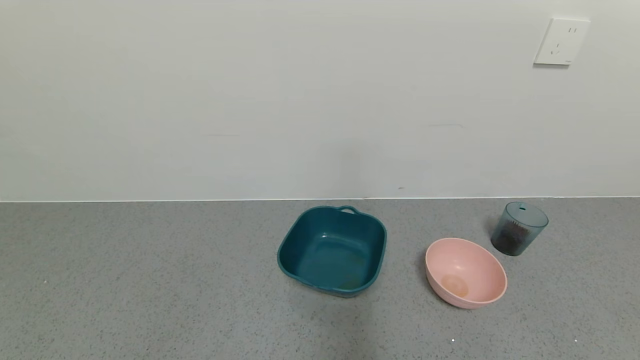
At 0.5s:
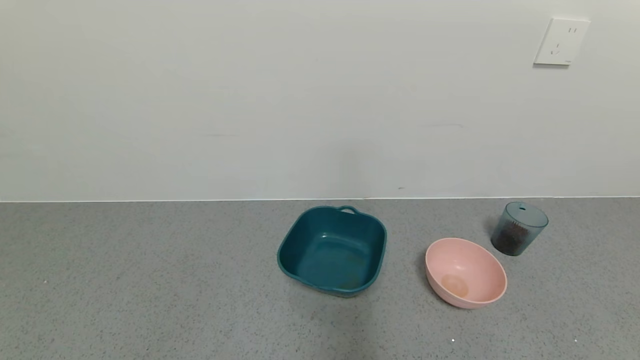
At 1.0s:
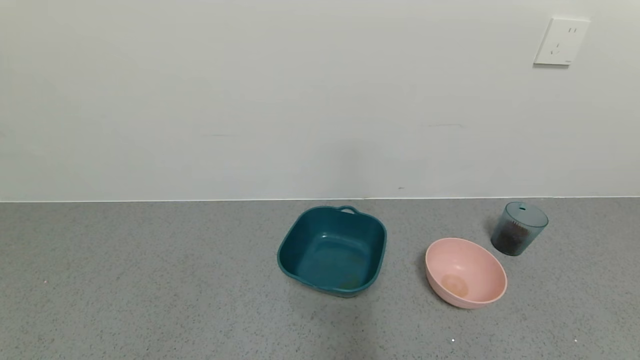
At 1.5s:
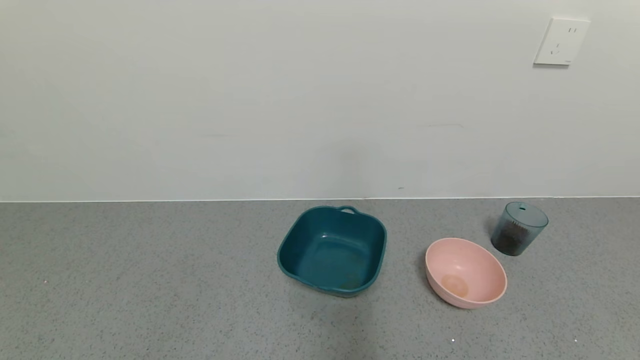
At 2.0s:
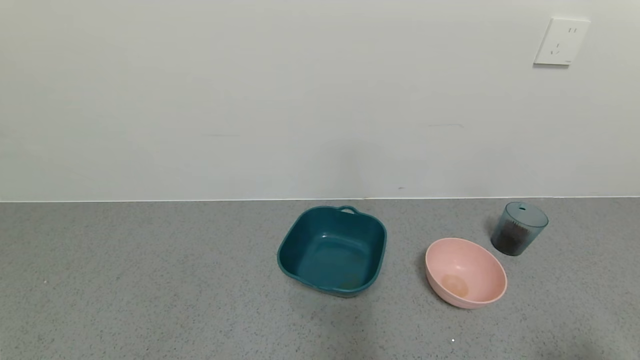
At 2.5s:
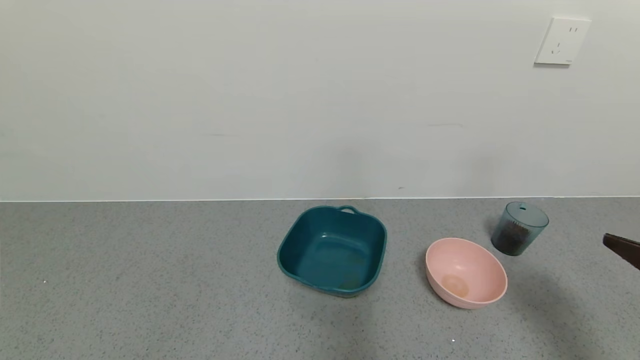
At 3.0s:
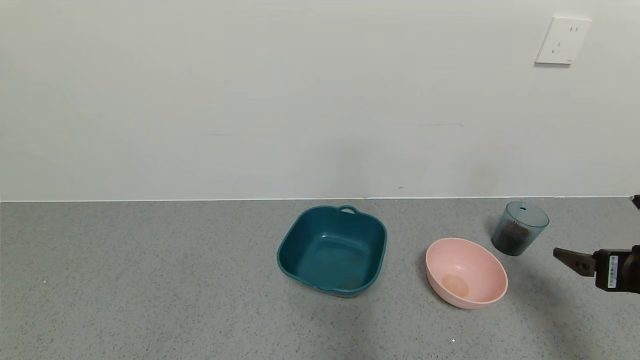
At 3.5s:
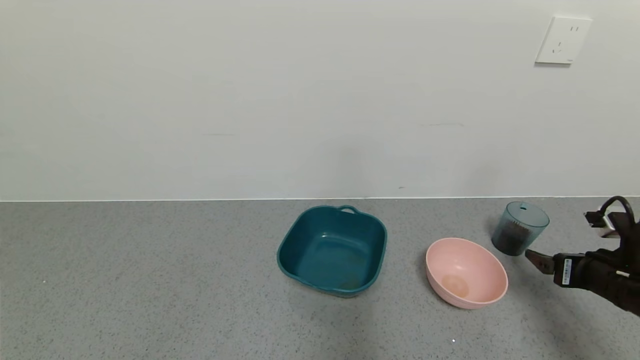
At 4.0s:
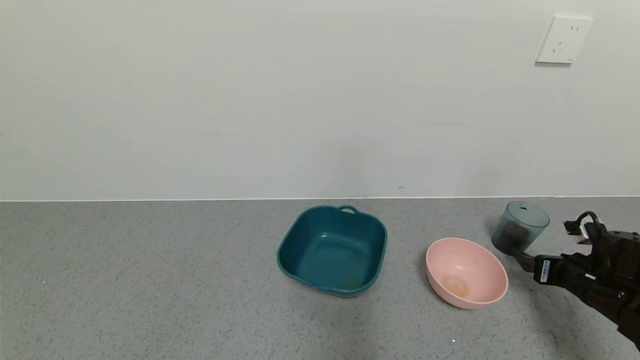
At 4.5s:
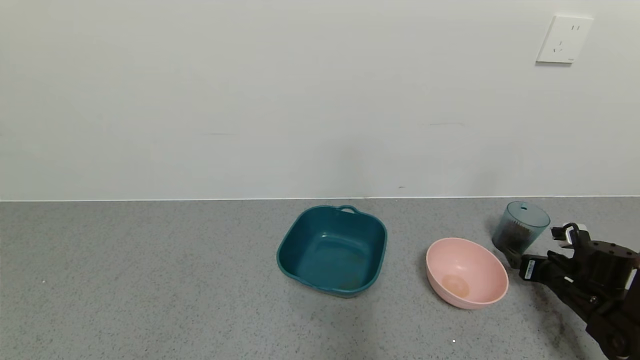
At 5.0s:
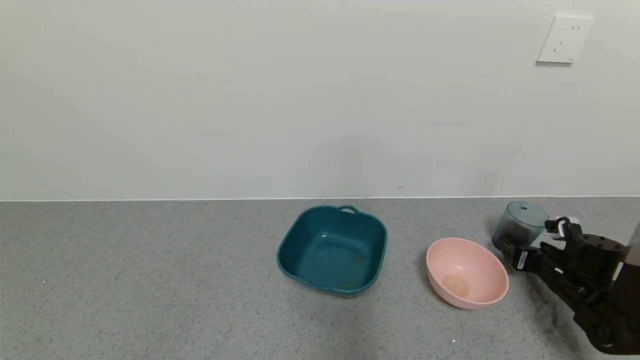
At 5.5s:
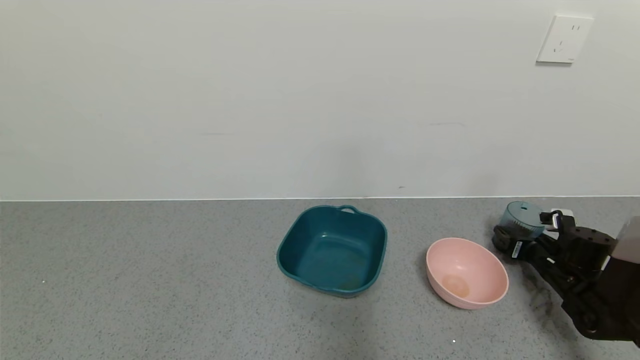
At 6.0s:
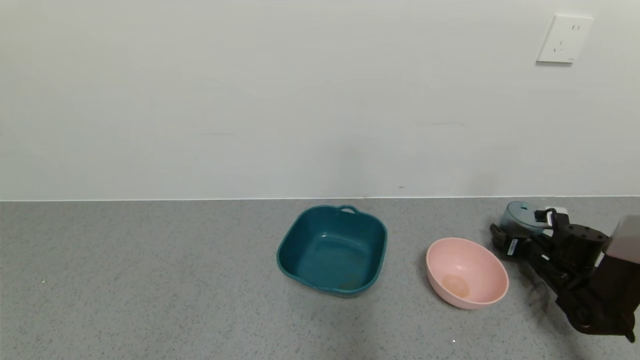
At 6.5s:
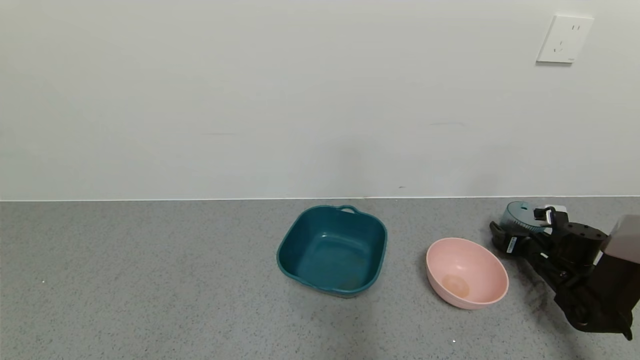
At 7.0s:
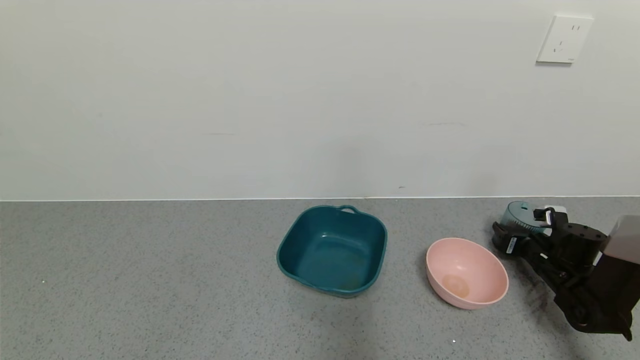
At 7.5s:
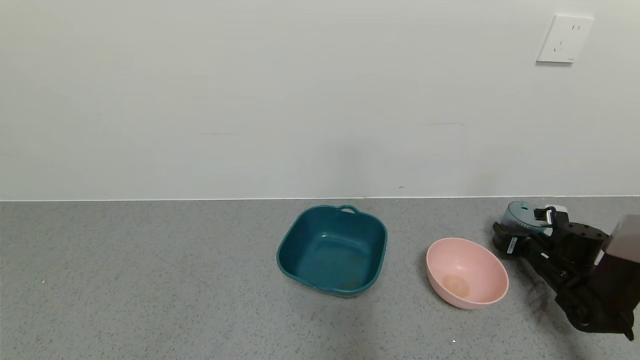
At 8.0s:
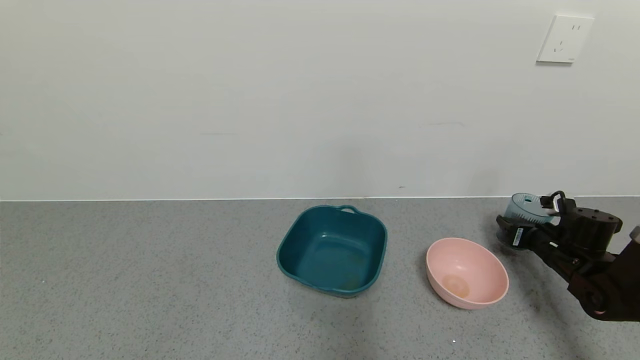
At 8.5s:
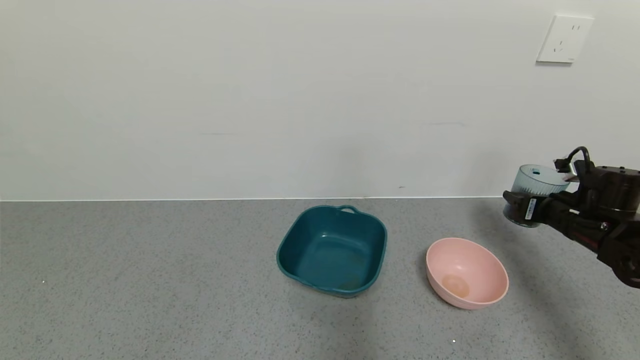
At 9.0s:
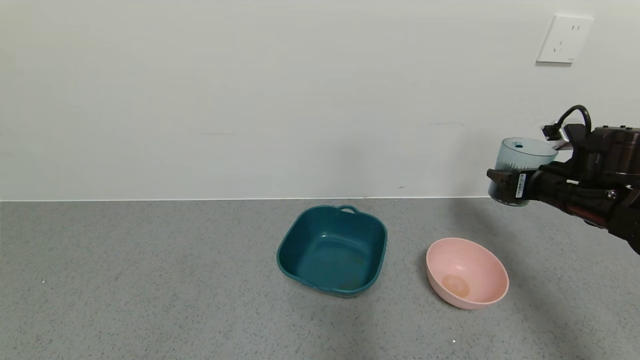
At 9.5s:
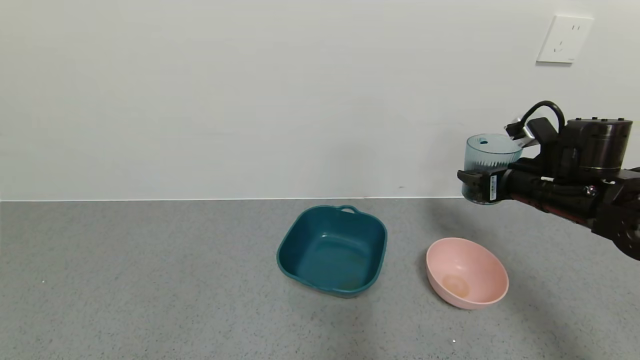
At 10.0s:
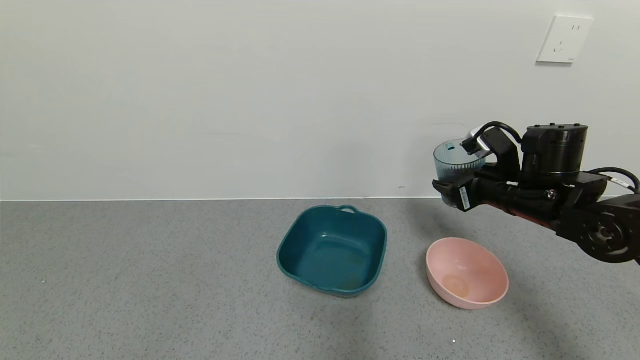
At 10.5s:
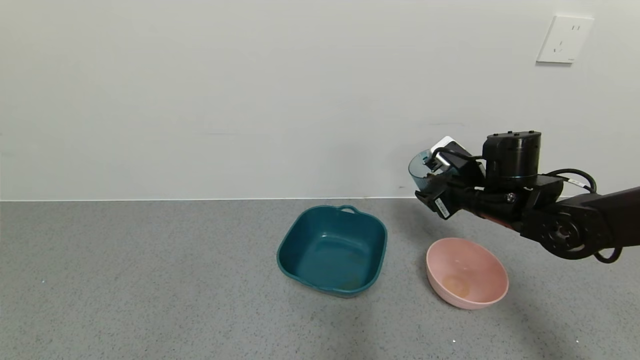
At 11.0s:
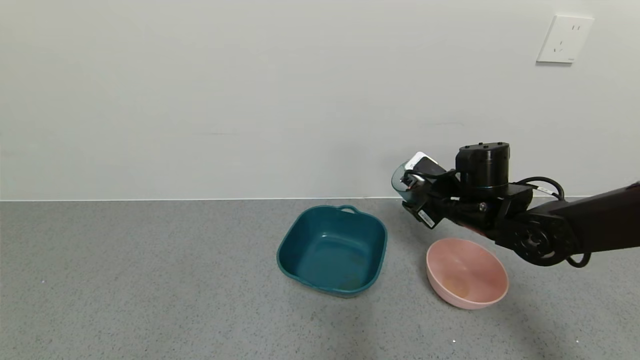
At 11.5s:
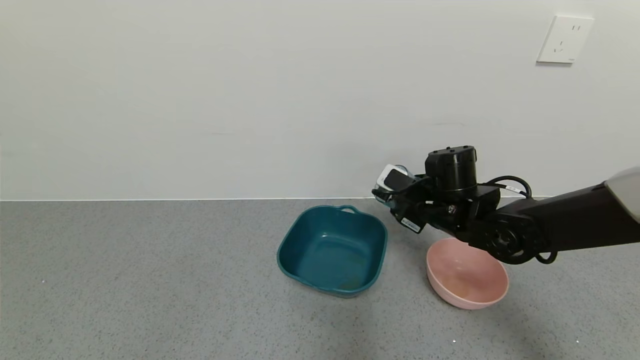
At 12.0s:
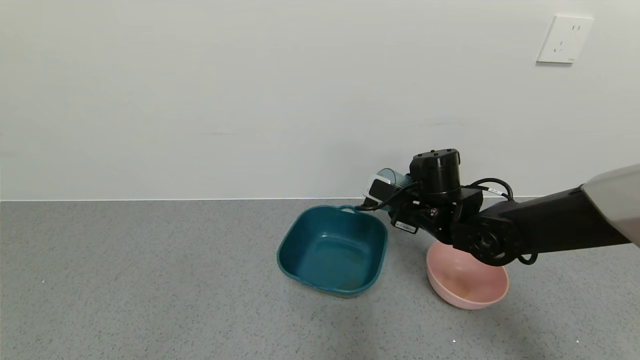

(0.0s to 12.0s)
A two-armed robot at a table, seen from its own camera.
Task of the whole recording: use a gripper to pick up the cup and pour the solid into a bowl or tray.
Step, 0.0s - 7.0s: Grasp the glass of coffee beans with the right gripper.
2.0s - 4.0s: The right gripper moves forward and downward, approximately 30 cm.
4.0s - 6.0s: The right gripper is displaced forward by some 10 cm.
6.0s - 8.0s: The right gripper closes its fingers.
8.0s - 10.0s: The right gripper moves to the left and upward, about 20 cm.
10.0s - 12.0s: The right gripper heads to the left, covering roughly 10 cm.

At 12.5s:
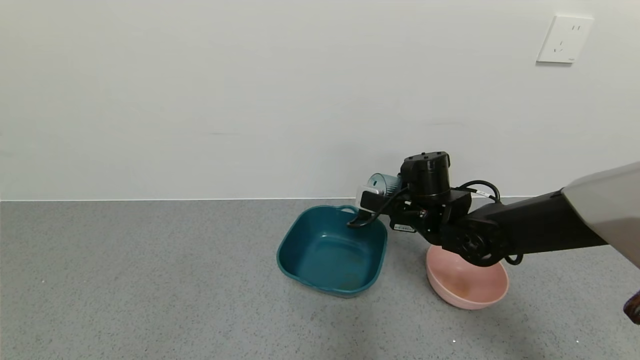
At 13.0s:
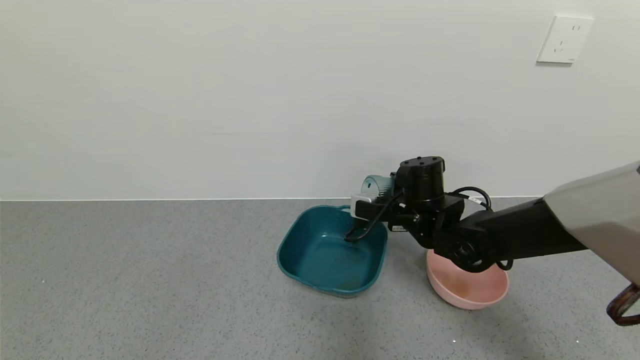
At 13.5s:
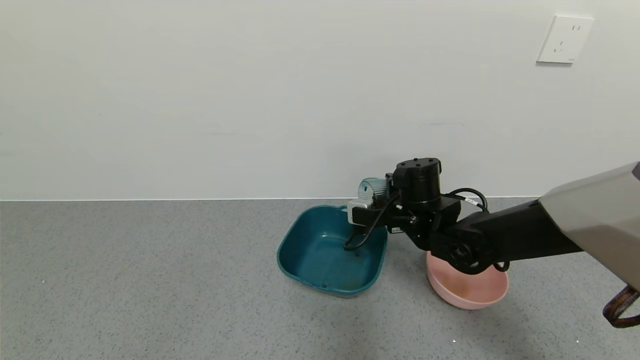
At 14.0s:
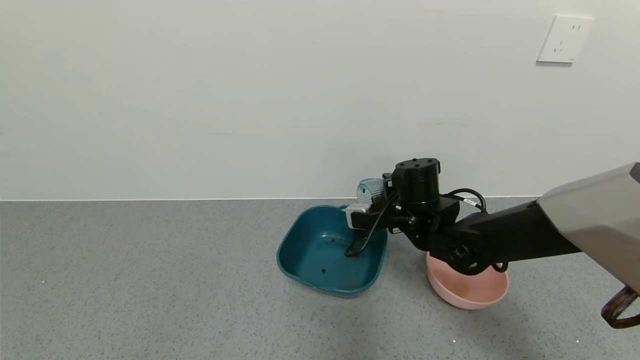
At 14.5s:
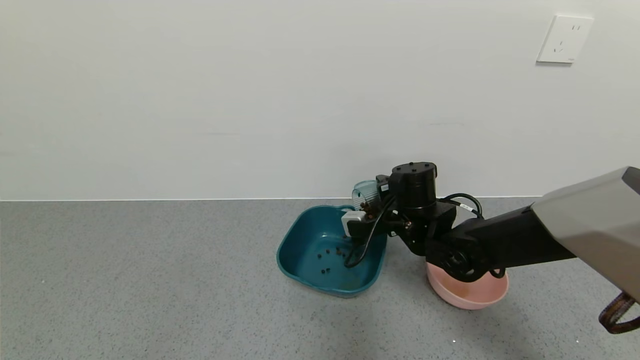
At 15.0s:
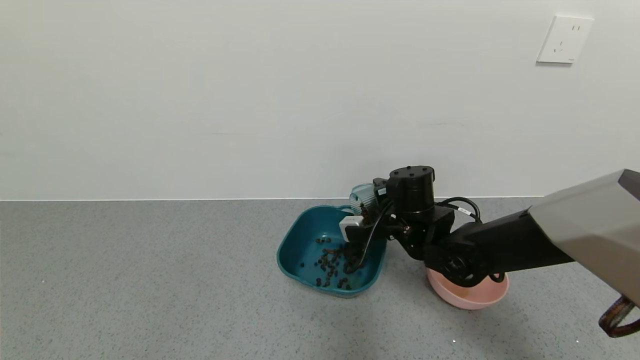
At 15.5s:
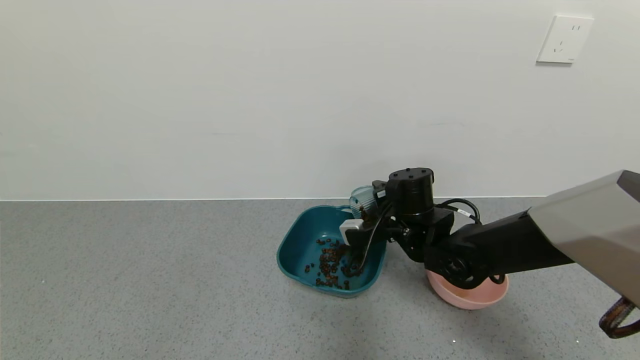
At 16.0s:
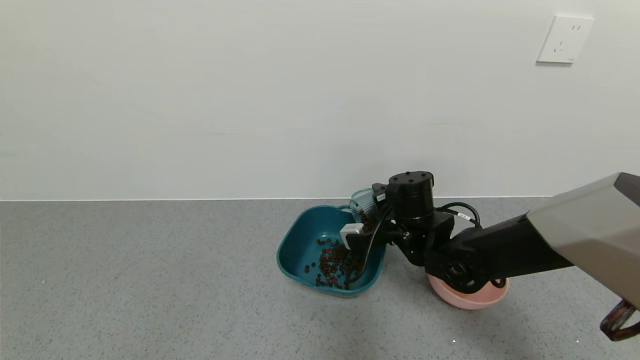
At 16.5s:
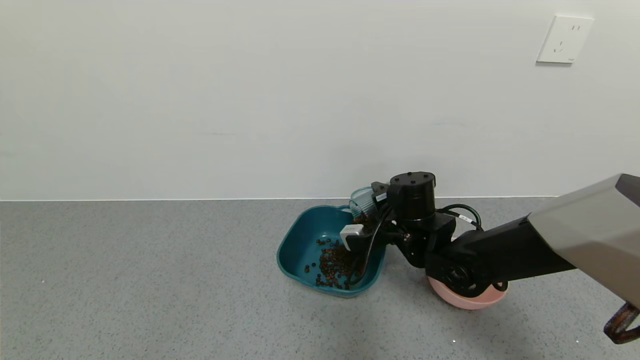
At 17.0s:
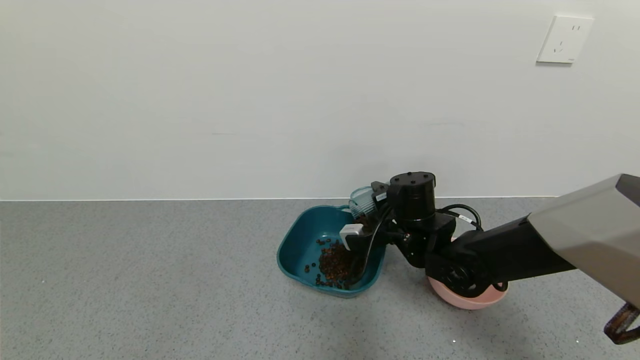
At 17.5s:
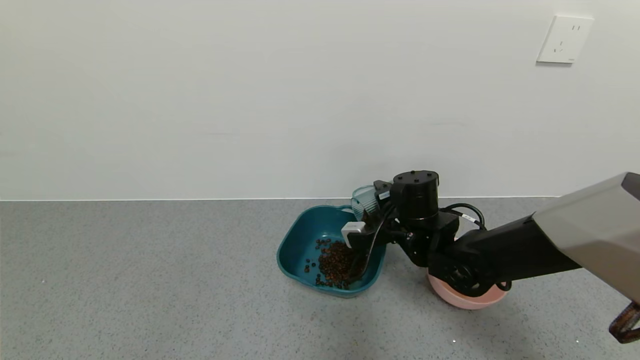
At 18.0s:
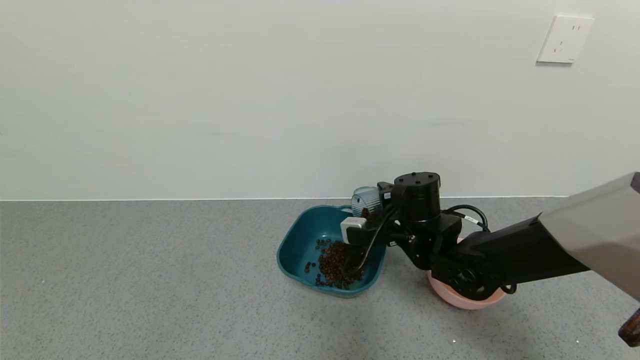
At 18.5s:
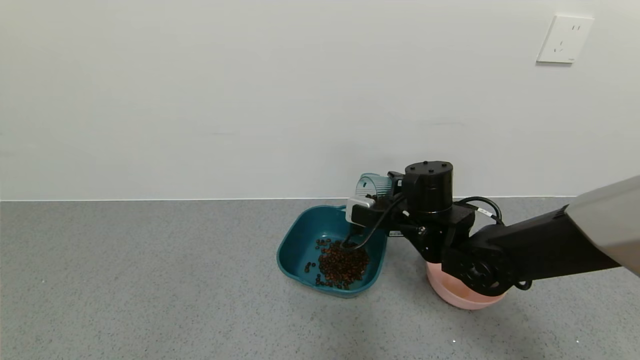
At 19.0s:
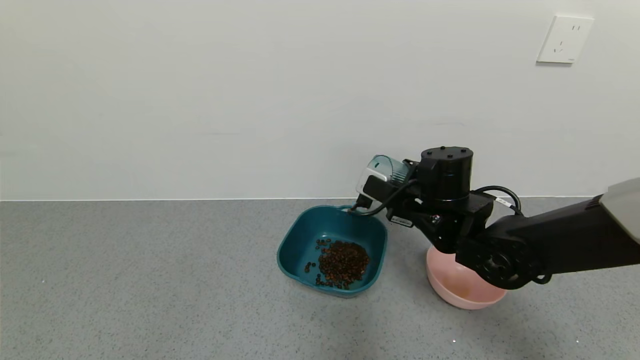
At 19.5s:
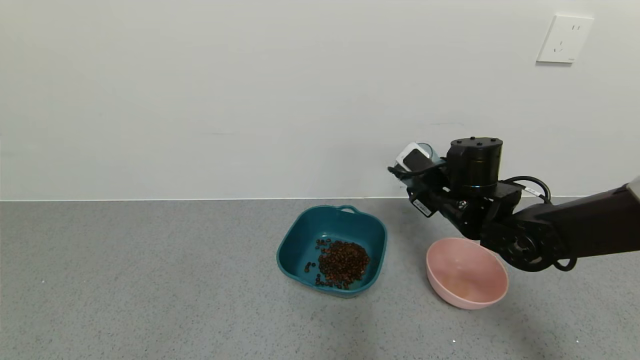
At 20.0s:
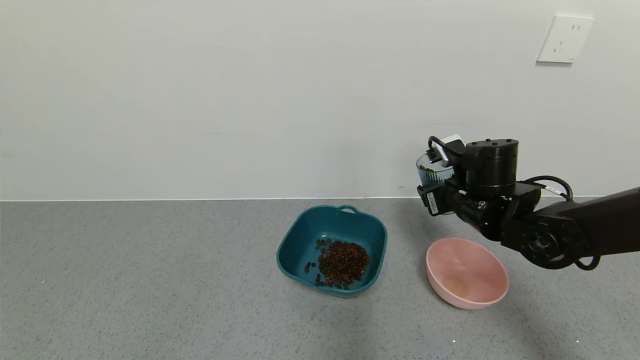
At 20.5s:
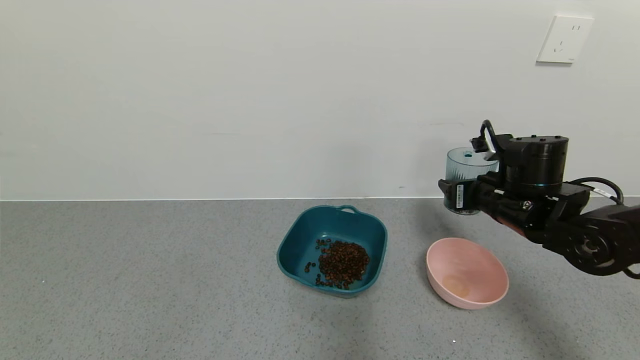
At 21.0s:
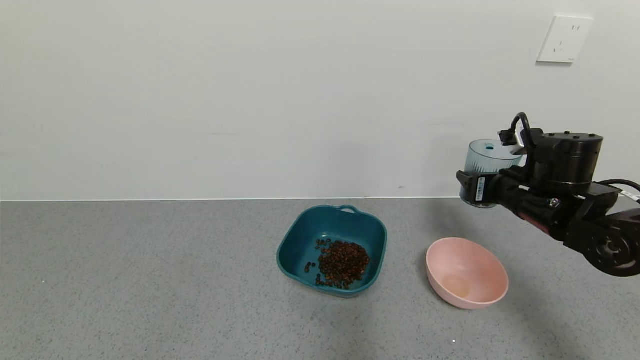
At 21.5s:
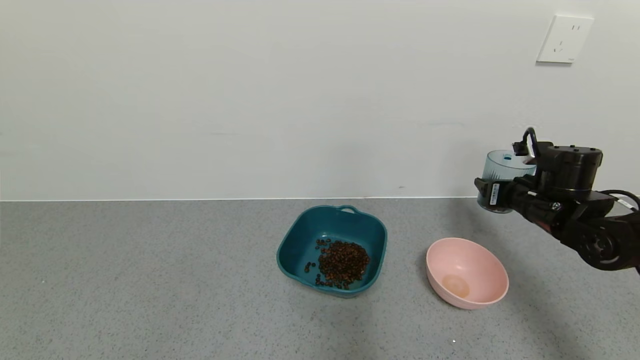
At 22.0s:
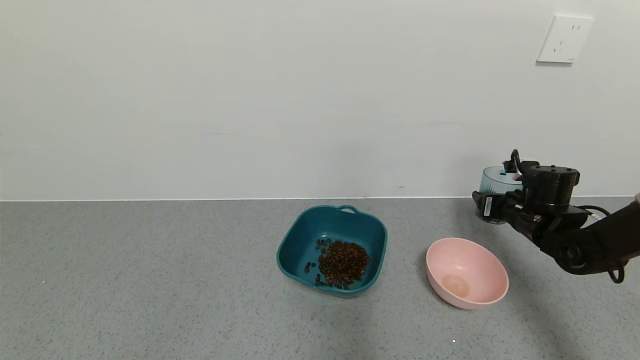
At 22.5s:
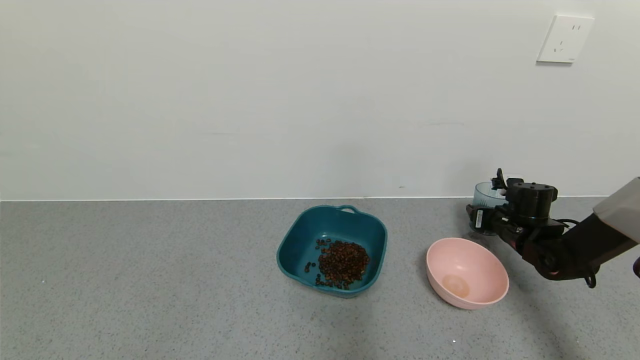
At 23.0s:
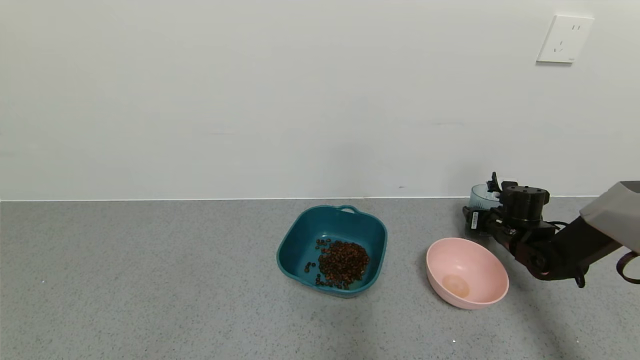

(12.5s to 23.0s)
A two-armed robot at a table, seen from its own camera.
Task of the whole recording: use a gripper to pick up the cup and pour the solid into a bowl or tray.
Step, 12.5s - 19.0s: Pour the coffee beans into the green bowl with the right gripper.
14.5s - 16.5s: The grippers move only a little.
16.5s - 19.0s: The right gripper moves about 5 cm.
19.0s - 21.0s: The right gripper goes approximately 15 cm to the right.
21.0s - 23.0s: The right gripper is displaced downward, forward and to the right by roughly 15 cm.
